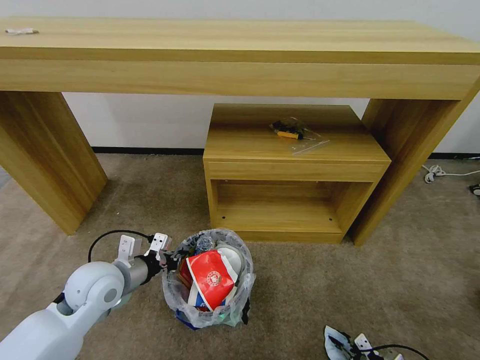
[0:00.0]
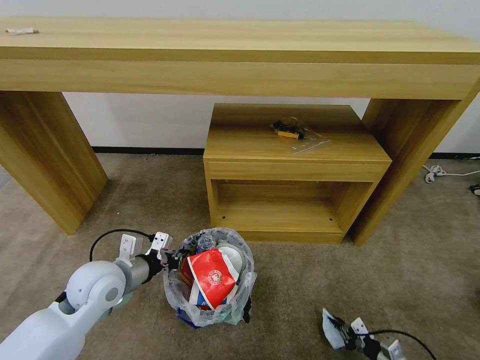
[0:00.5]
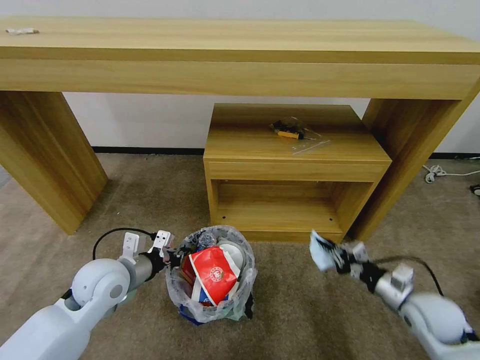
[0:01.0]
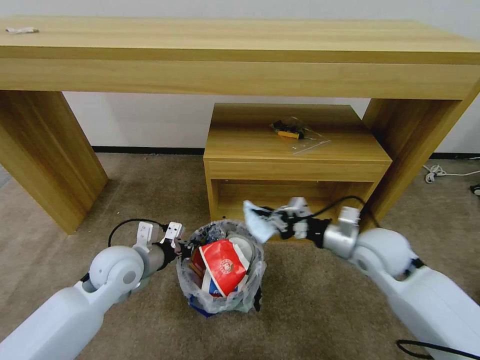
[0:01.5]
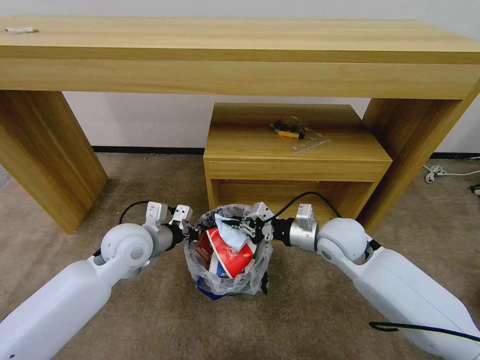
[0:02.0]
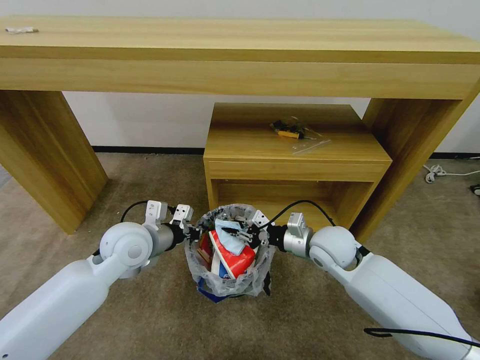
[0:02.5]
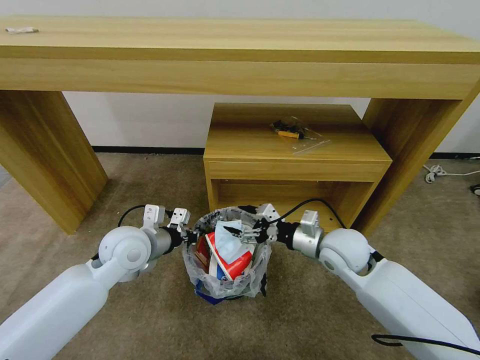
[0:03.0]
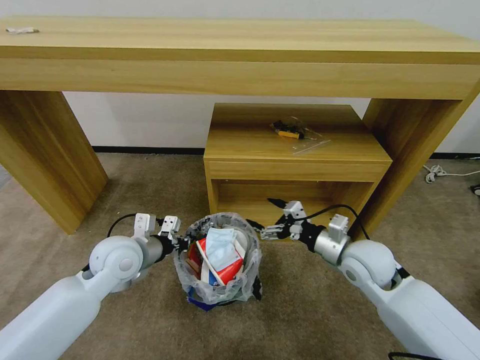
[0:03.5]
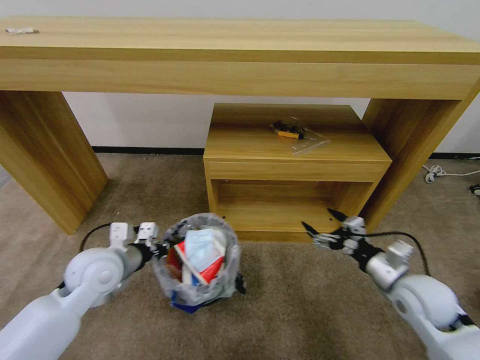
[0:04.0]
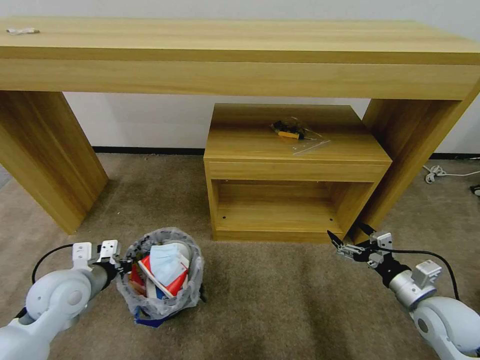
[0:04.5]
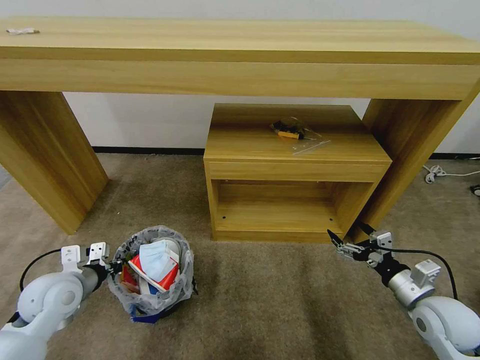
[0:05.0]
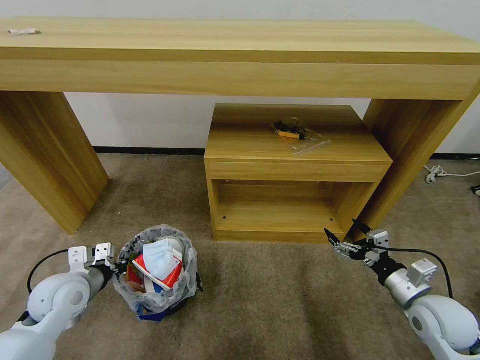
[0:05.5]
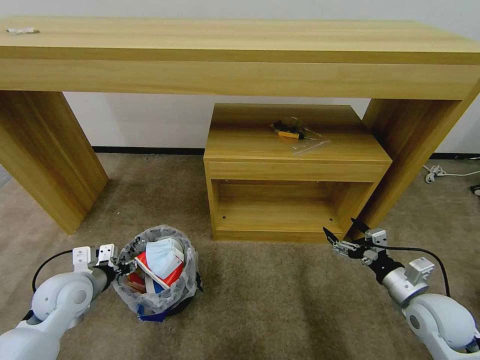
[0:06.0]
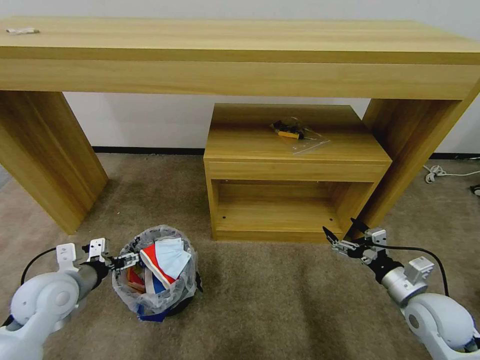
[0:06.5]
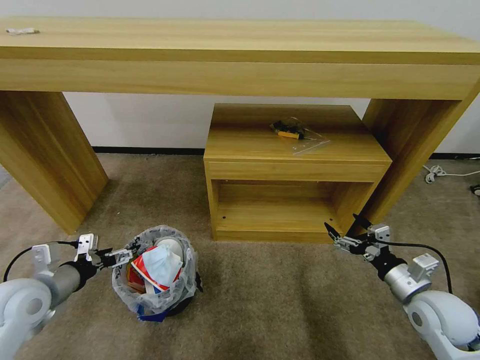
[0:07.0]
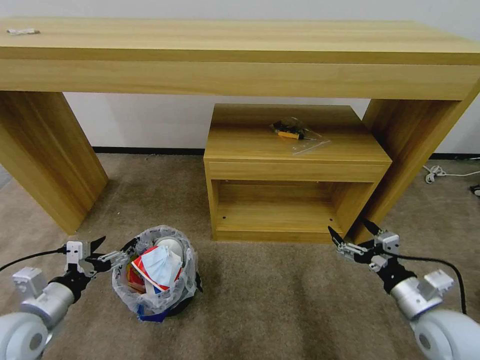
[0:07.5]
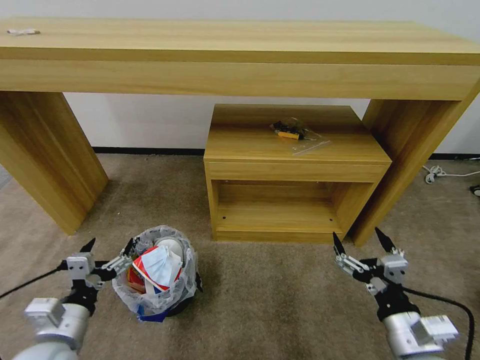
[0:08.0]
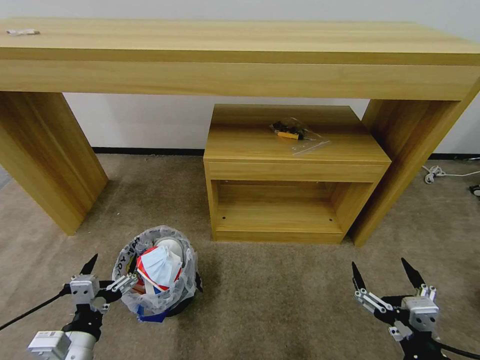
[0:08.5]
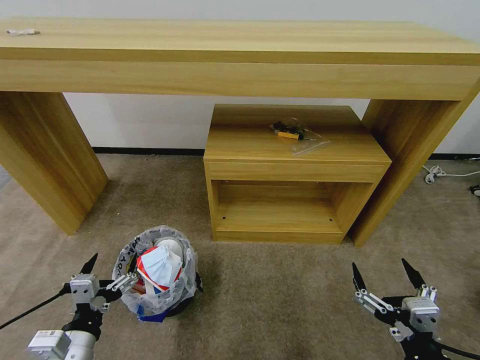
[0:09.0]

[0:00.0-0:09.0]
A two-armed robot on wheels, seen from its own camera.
Task of the whole recording: Pick up the trash bin and place the garbage on the floor into it.
0:00.0 to 0:02.0: The right gripper travels upward, forward and to the left by about 50 cm. Meanwhile the left gripper goes approximately 5 cm forward.
0:02.0 to 0:04.5: The right gripper moves to the right, backward and downward, about 25 cm, and opens up, while the left gripper heads to the left and backward, covering some 15 cm.
0:04.5 to 0:07.0: The left gripper moves to the left, approximately 5 cm, and opens.
0:07.0 to 0:09.0: The right gripper shifts some 20 cm backward and to the left, while the left gripper shifts about 20 cm backward, to the right and downward.

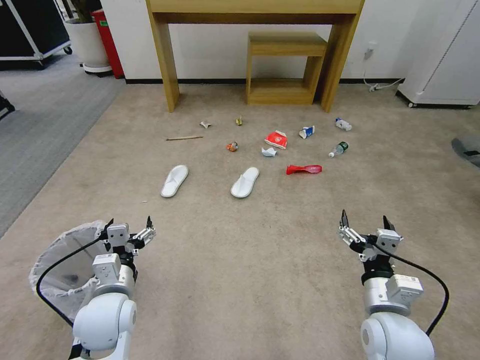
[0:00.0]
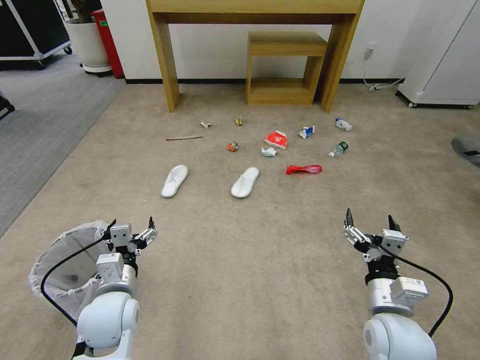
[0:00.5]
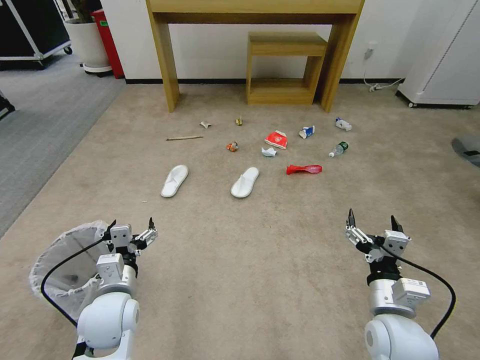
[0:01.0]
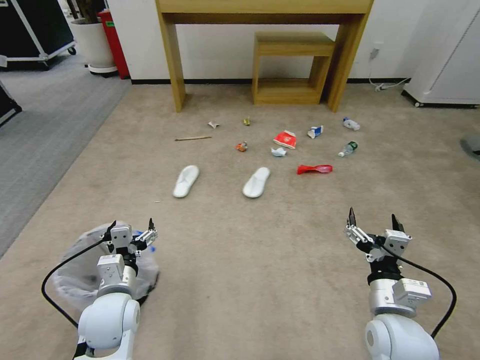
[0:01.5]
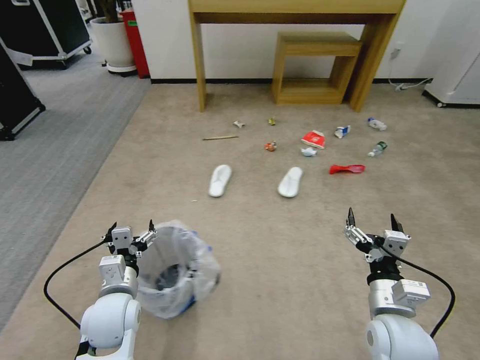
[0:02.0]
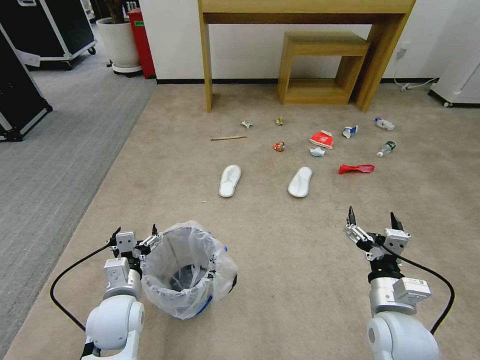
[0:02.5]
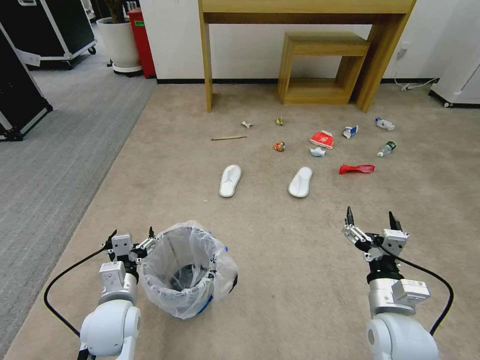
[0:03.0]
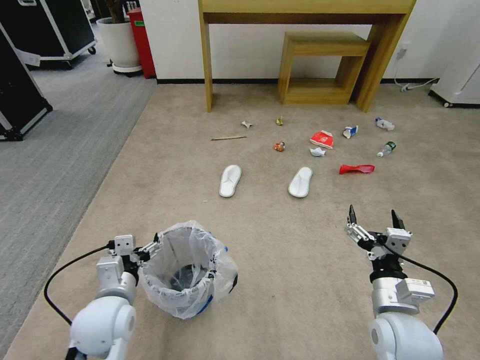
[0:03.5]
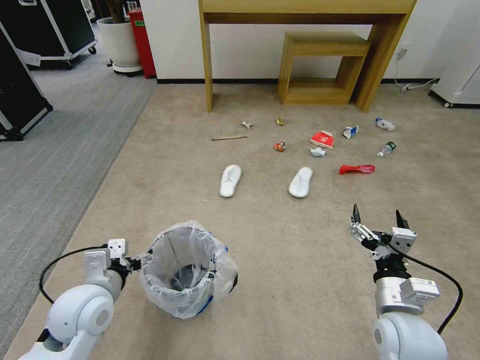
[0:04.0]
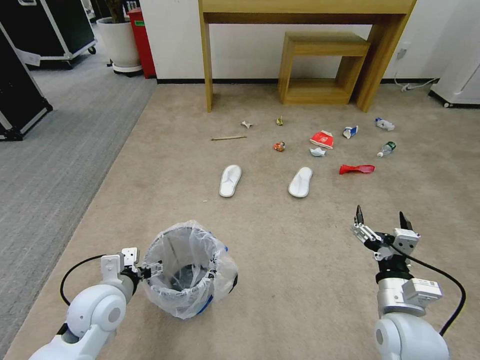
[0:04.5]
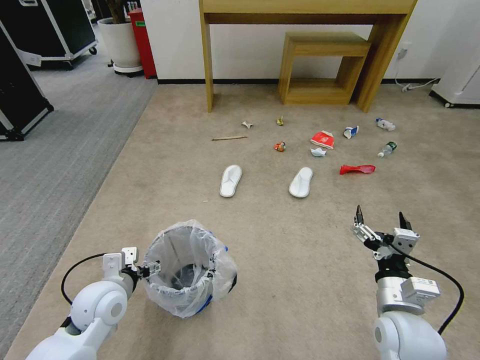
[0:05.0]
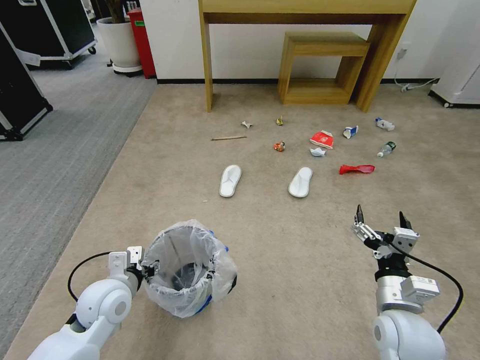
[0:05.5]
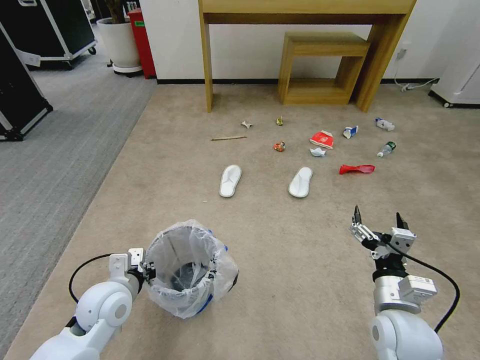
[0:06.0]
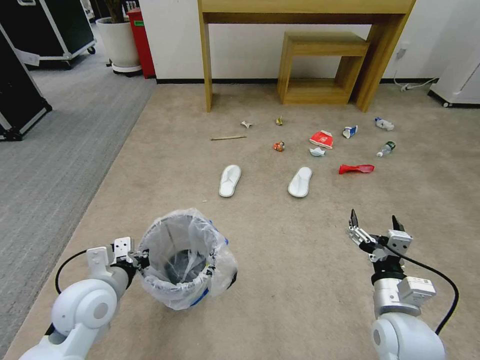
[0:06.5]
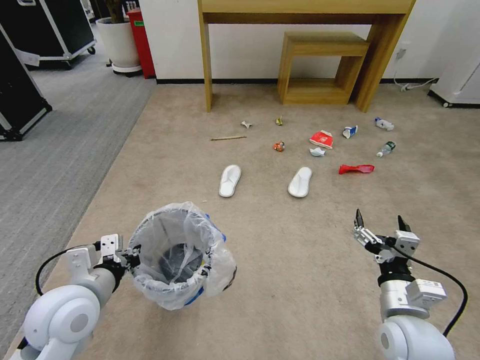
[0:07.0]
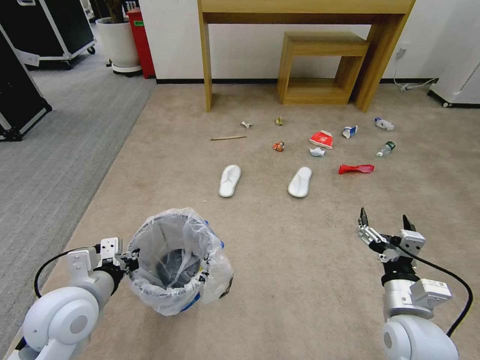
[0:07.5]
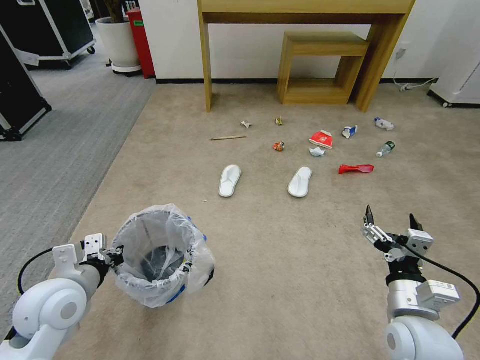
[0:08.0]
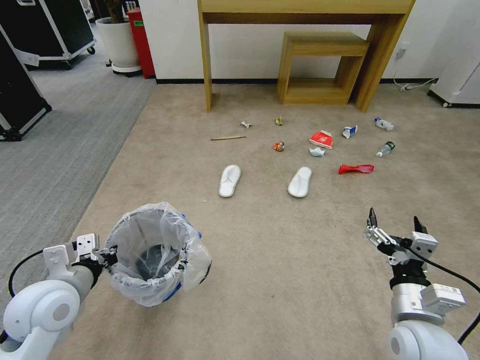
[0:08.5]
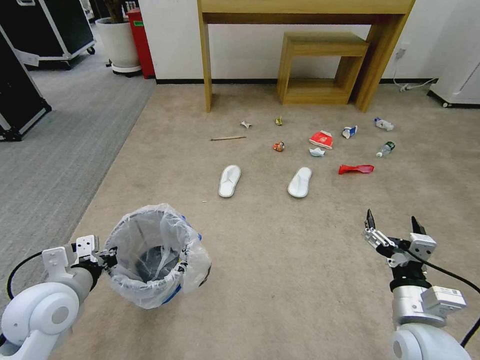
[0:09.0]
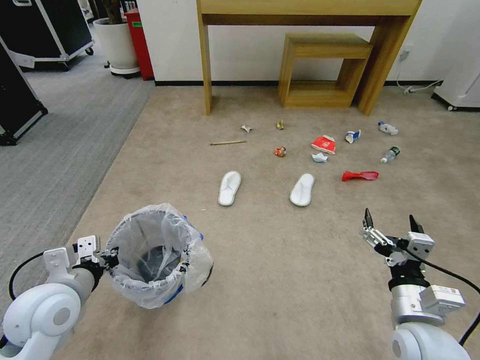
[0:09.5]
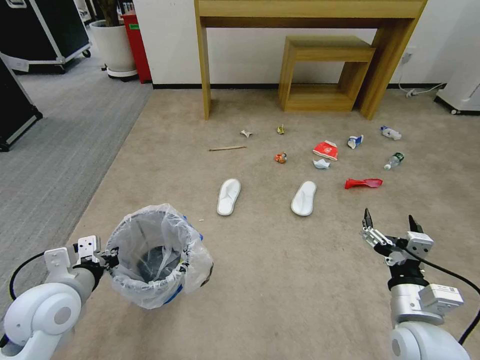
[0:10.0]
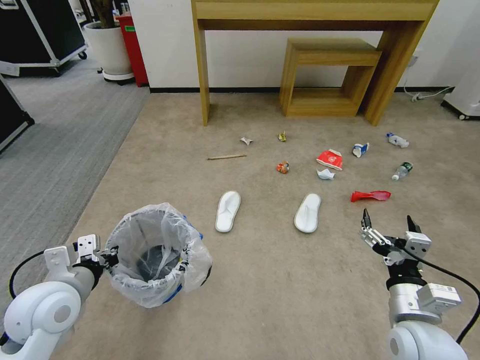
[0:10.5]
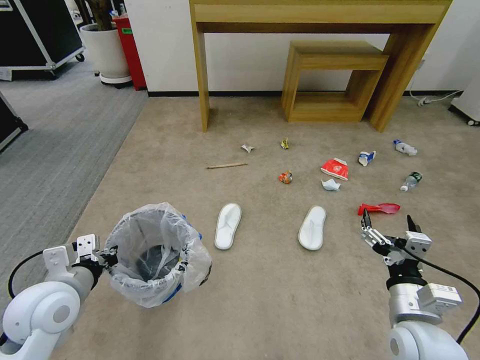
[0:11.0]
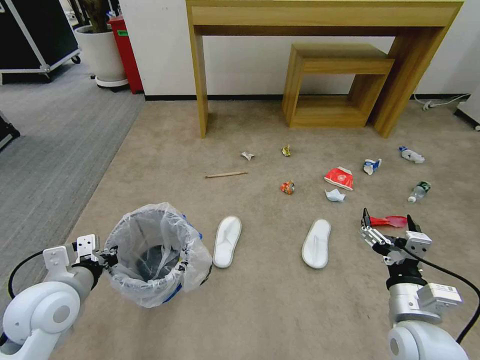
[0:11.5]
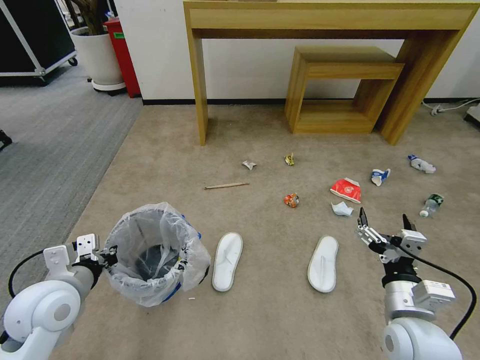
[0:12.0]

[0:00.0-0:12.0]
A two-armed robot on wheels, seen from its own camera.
Task of the whole recording: Pick up the trash bin and place the garbage on the floor into it.
0:02.0 to 0:04.0: The left gripper moves about 5 cm.
0:04.0 to 0:06.0: The left gripper shifts by about 5 cm, and closes its fingers.
0:06.0 to 0:08.0: The left gripper is displaced upward and to the left by some 10 cm.
0:08.0 to 0:10.0: Both grippers stay about where they are.

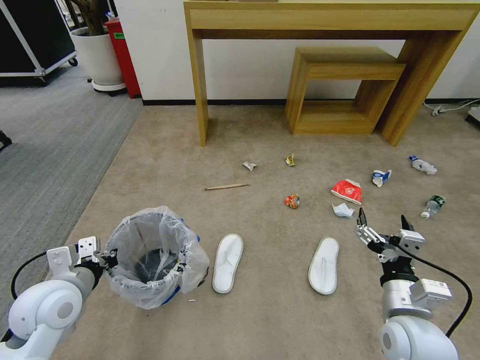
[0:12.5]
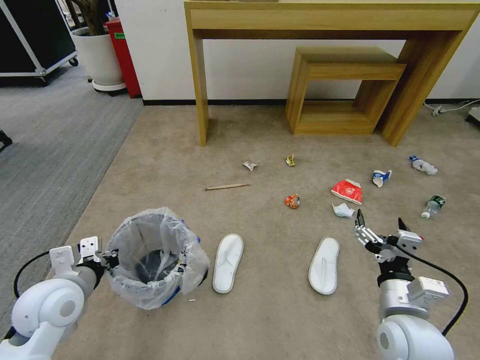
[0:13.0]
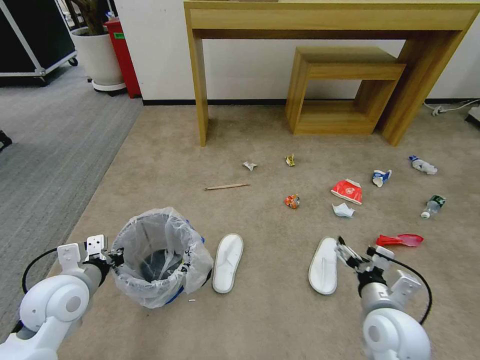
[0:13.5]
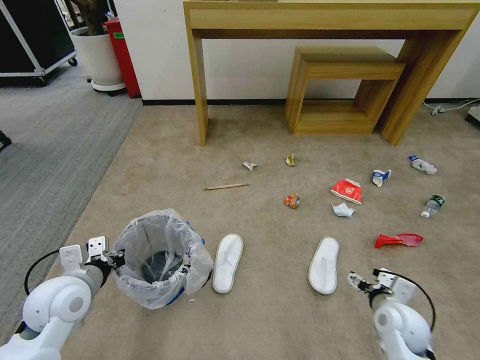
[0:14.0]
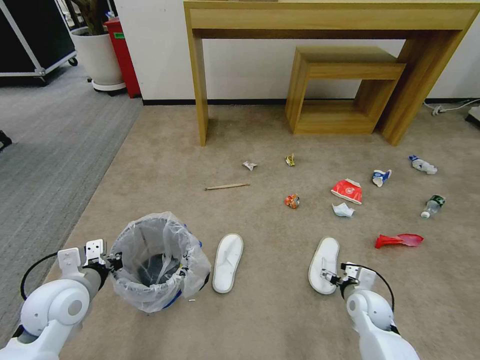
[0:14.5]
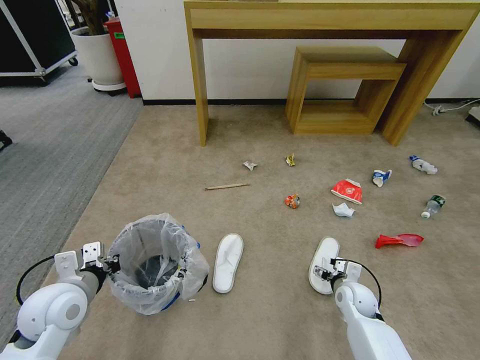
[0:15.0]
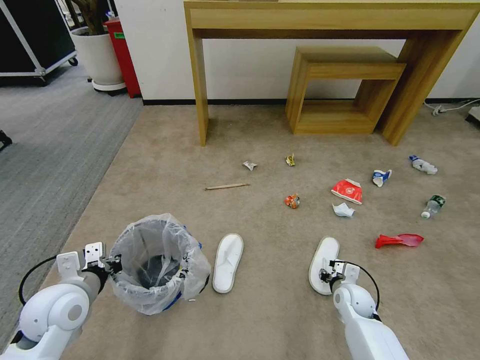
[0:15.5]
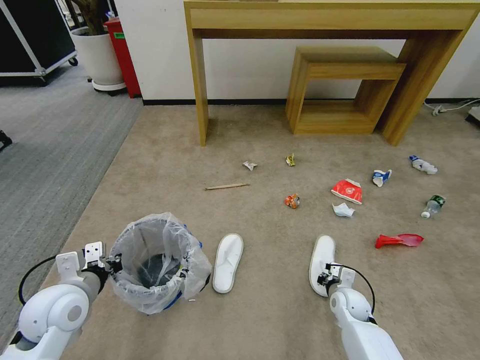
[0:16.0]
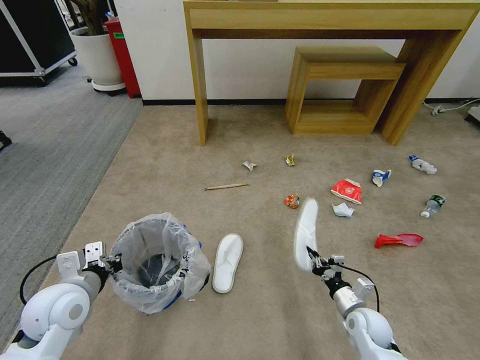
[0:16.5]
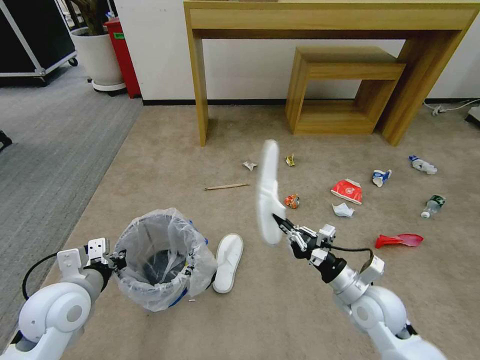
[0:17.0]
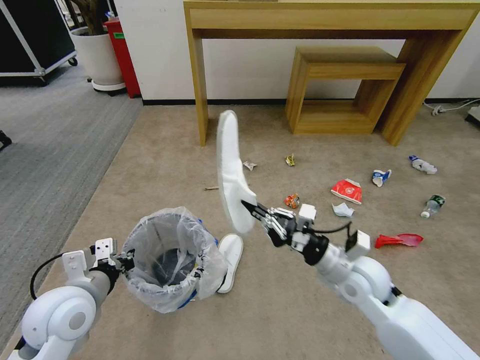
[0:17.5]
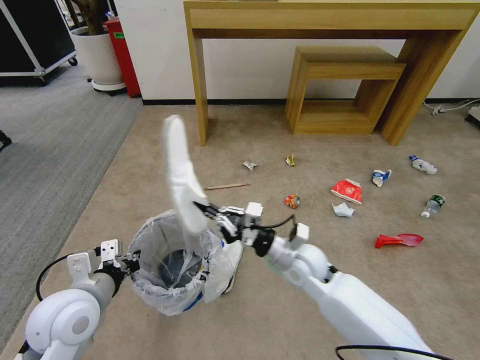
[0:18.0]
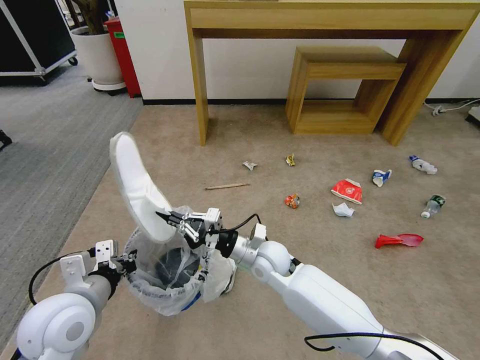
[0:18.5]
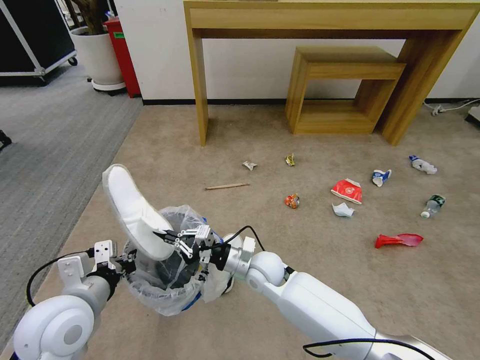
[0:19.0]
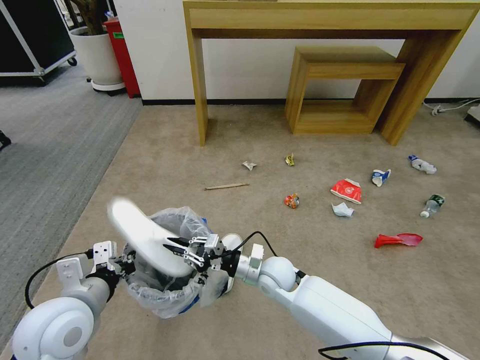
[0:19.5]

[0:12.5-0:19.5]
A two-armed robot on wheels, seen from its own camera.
Task of the whole recording: Pick up the trash bin and place the garbage on the floor into it.
0:12.5 to 0:14.5: The right gripper travels downward and forward by some 20 cm.
0:14.5 to 0:16.0: The right gripper shifts approximately 5 cm downward, and closes.
0:16.0 to 0:17.5: The right gripper moves upward, about 25 cm.
0:17.5 to 0:19.5: The right gripper is displaced to the left and downward by some 20 cm.
